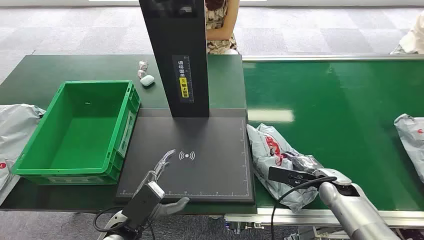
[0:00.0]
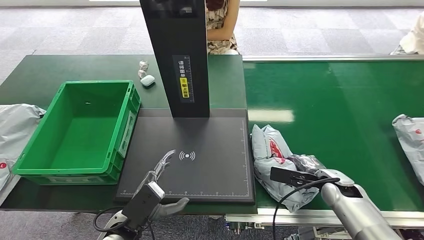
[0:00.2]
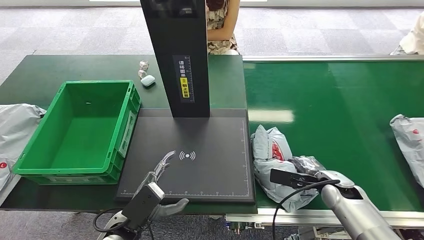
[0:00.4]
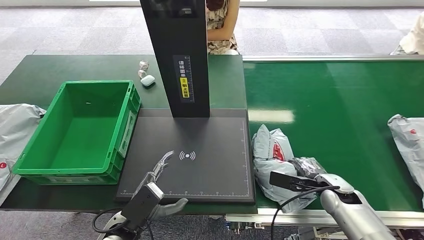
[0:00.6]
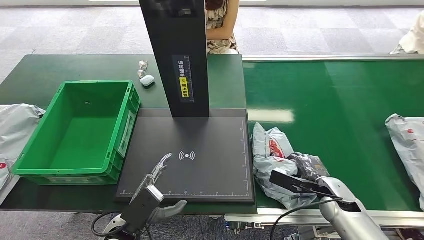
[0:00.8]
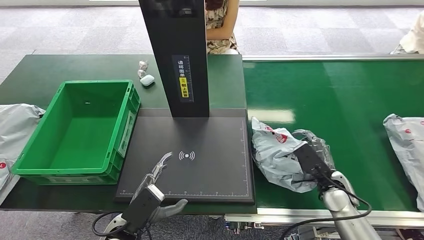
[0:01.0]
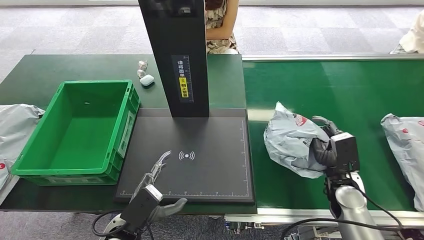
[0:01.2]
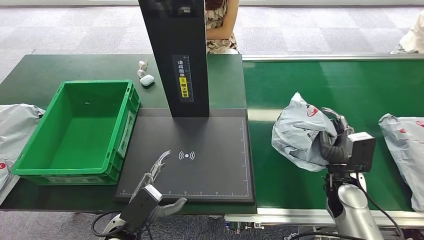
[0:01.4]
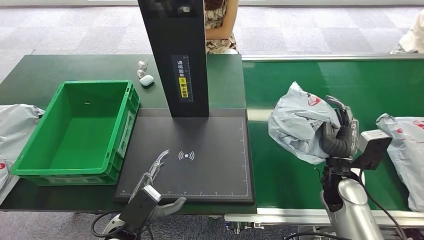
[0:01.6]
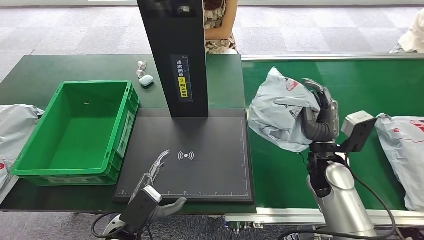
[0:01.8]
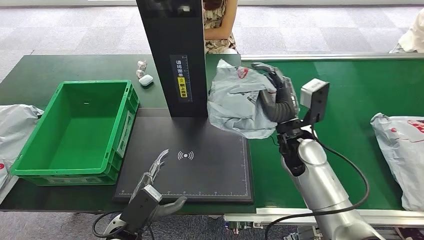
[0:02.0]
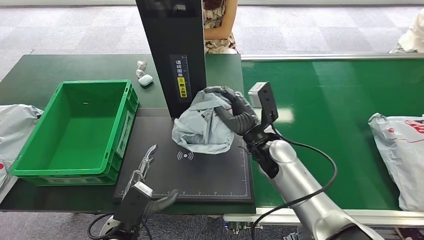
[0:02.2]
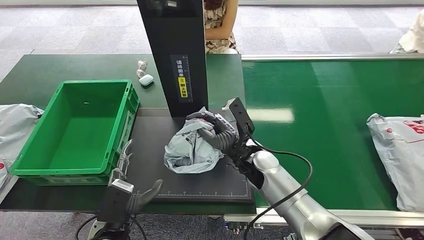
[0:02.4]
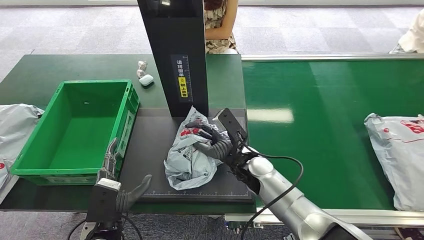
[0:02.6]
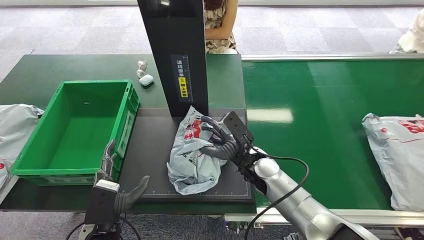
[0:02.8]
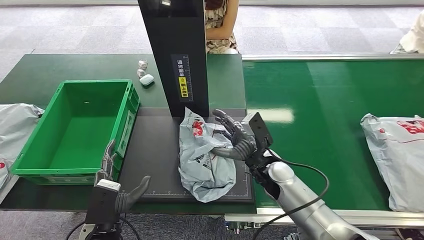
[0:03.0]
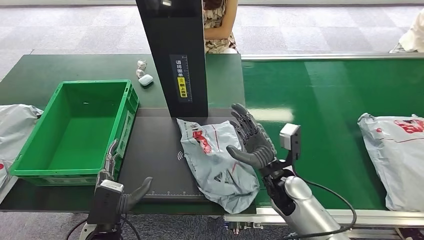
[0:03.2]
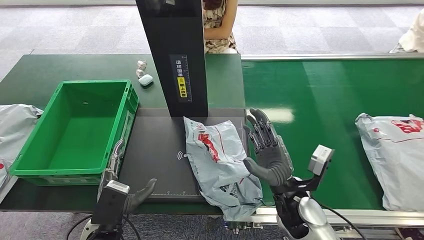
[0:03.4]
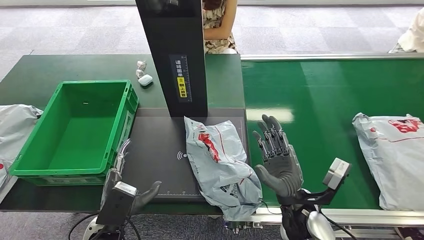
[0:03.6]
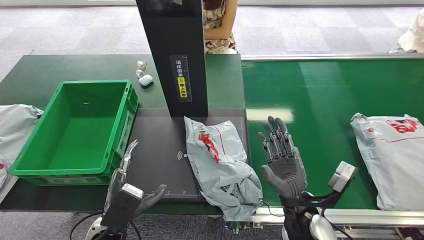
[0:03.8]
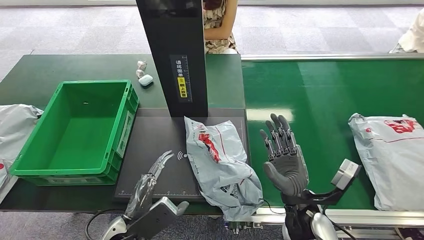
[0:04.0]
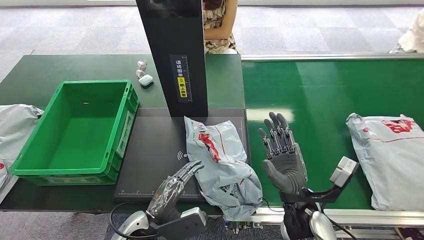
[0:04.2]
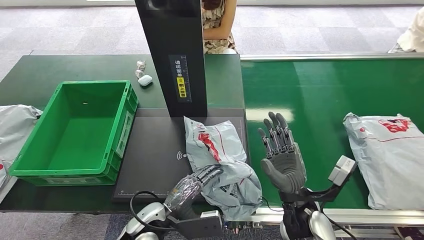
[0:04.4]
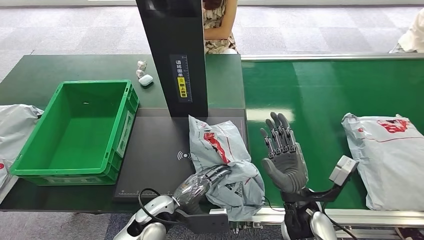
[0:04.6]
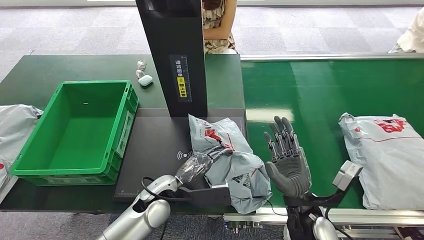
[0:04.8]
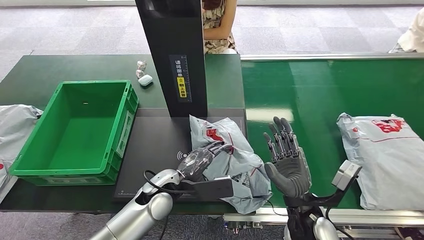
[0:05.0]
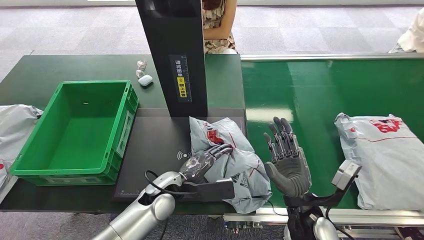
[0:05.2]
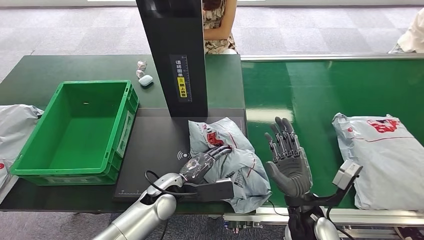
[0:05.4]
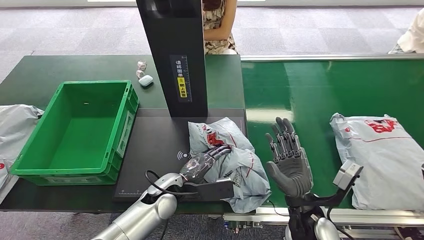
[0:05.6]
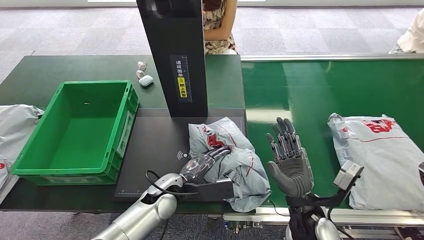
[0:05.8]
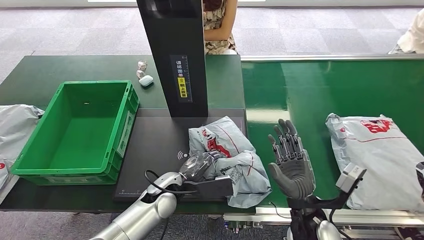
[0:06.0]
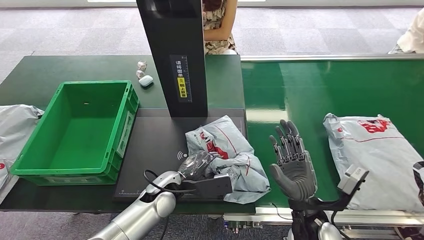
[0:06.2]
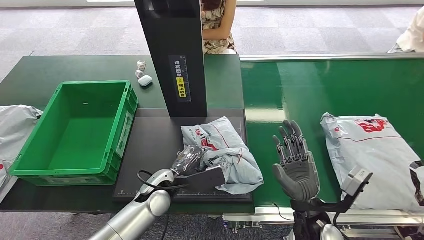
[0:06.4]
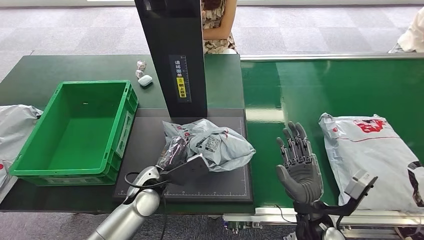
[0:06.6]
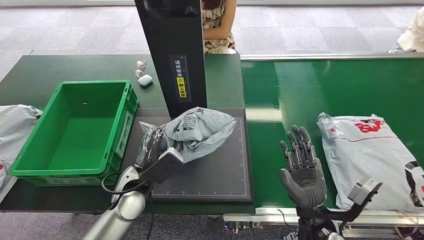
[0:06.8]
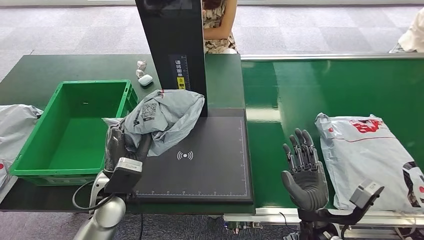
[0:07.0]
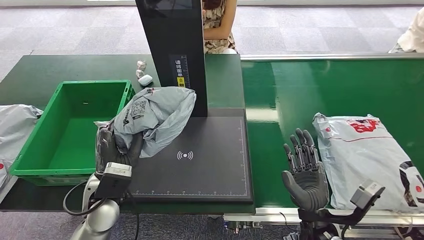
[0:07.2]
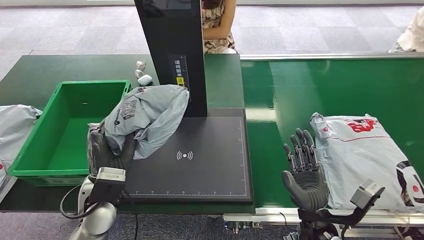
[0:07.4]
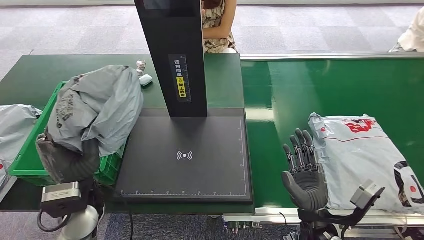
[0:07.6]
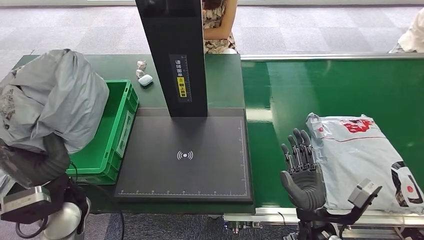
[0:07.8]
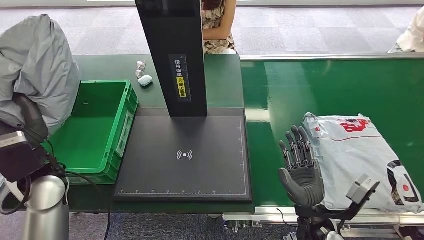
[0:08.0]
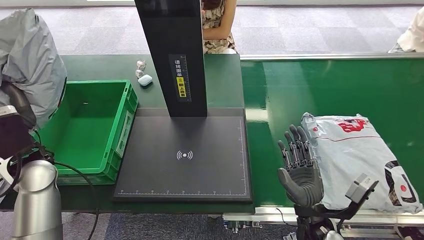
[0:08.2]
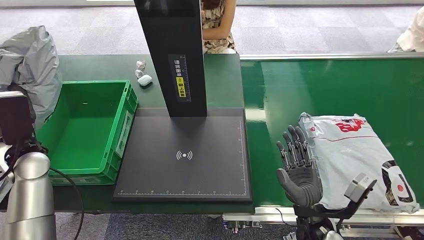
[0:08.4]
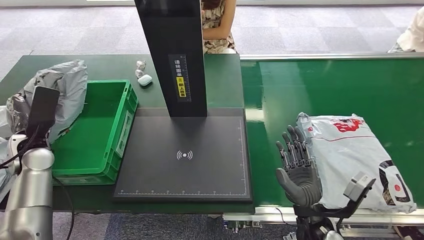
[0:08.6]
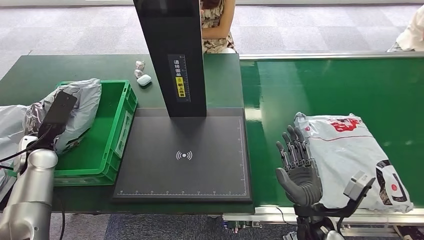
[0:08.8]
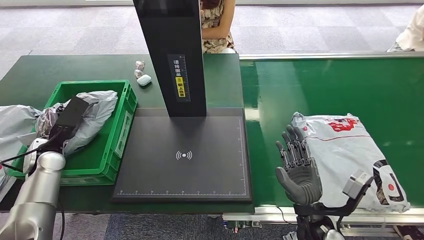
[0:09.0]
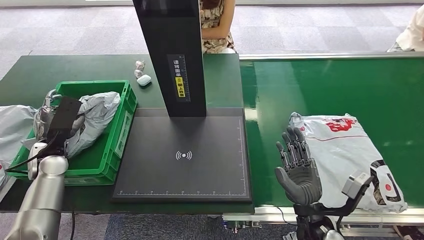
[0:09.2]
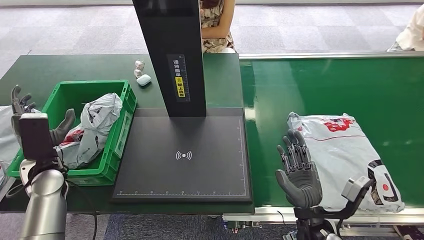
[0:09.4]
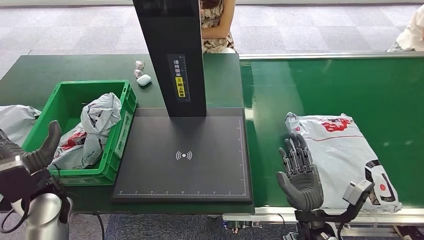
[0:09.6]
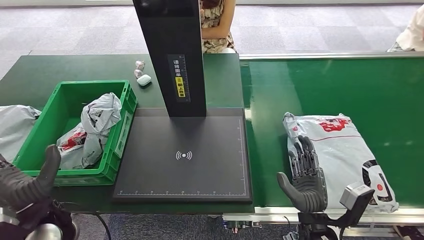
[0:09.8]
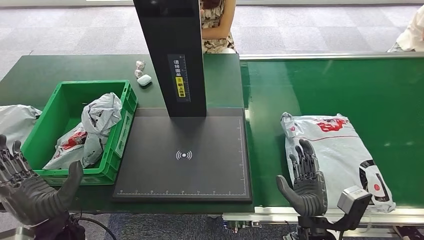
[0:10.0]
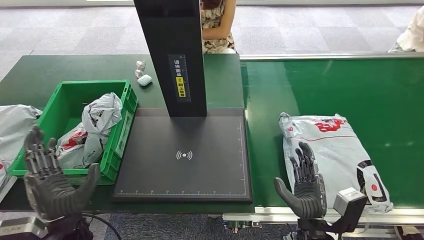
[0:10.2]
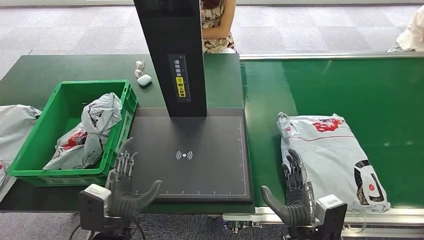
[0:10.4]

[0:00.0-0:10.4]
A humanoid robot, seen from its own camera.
Step, 0:00.0 to 0:01.6: Pick up the package from the conveyor belt.
Step, 0:01.8 to 0:03.8: Place the package onto the inbound machine.
Step, 0:04.2 to 0:07.6: Pick up the package from the inbound machine.
Step, 0:07.8 to 0:10.4: Place the package into the parcel locker.
